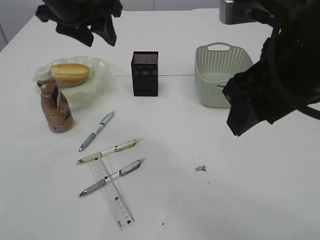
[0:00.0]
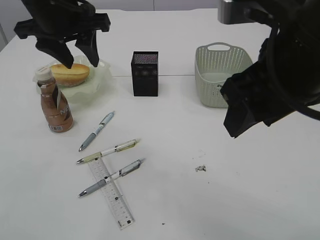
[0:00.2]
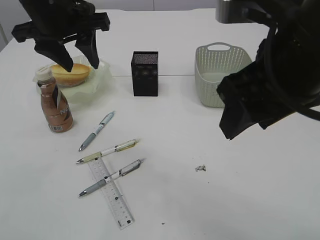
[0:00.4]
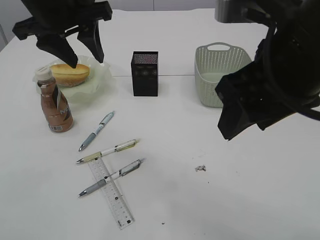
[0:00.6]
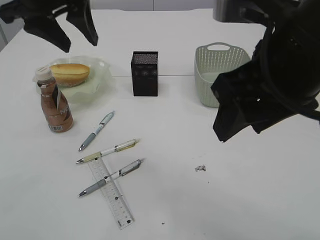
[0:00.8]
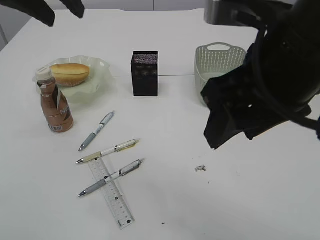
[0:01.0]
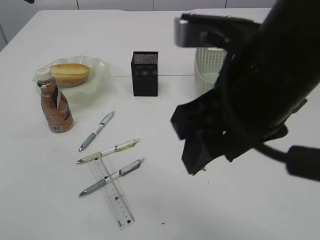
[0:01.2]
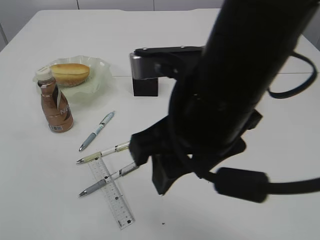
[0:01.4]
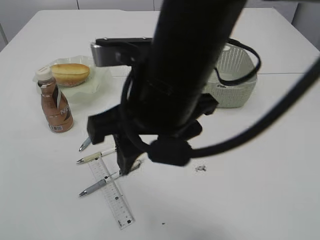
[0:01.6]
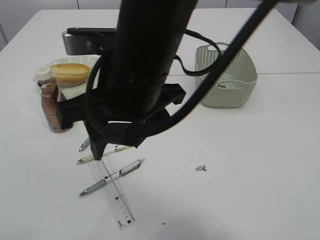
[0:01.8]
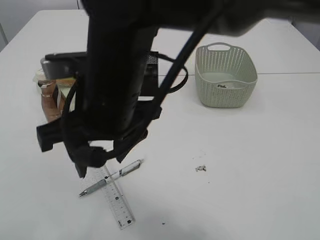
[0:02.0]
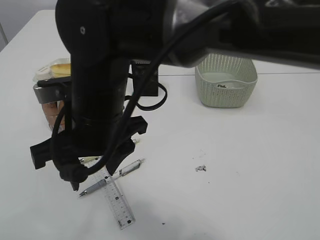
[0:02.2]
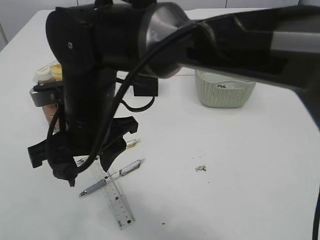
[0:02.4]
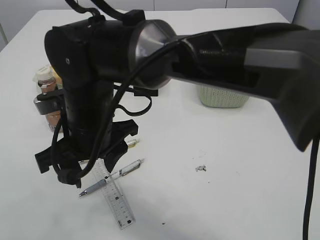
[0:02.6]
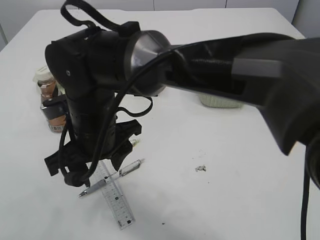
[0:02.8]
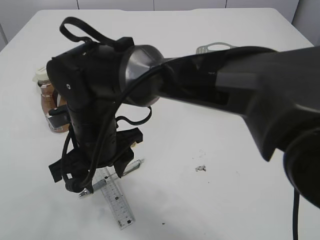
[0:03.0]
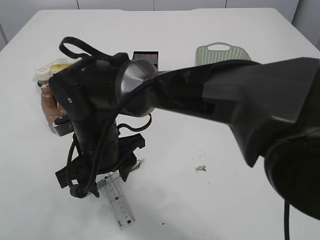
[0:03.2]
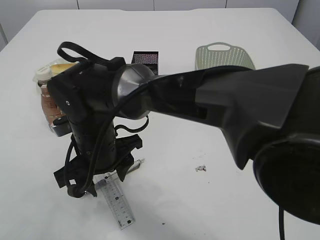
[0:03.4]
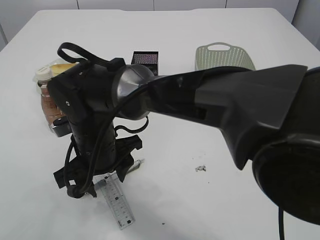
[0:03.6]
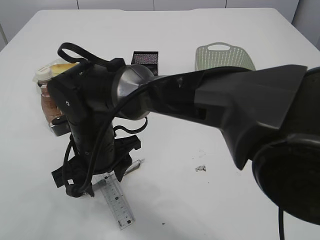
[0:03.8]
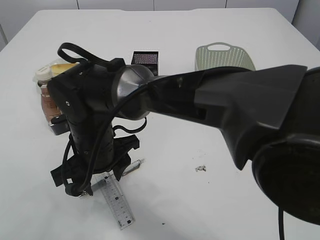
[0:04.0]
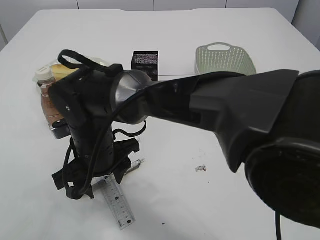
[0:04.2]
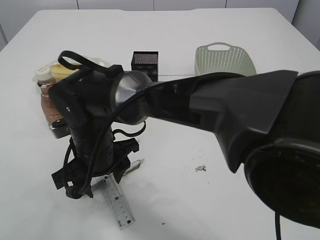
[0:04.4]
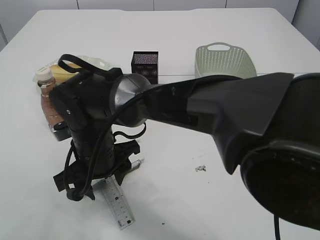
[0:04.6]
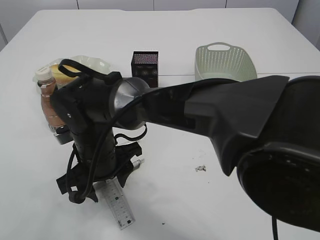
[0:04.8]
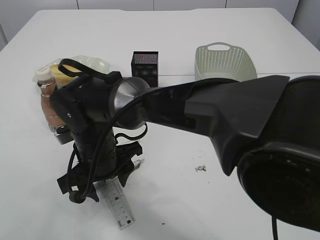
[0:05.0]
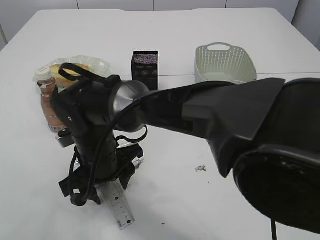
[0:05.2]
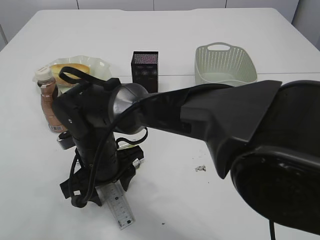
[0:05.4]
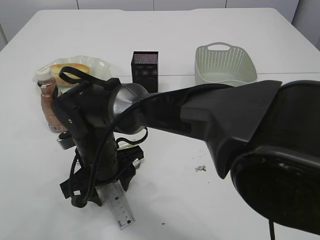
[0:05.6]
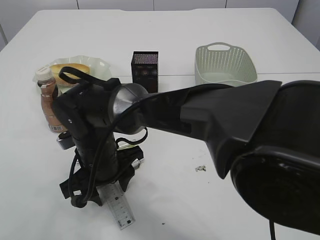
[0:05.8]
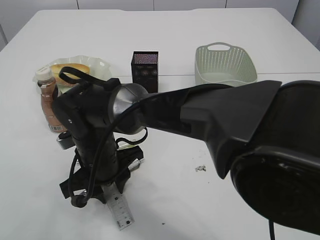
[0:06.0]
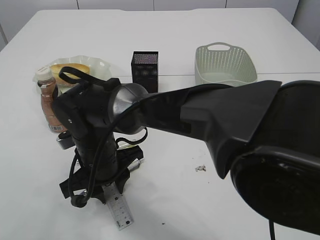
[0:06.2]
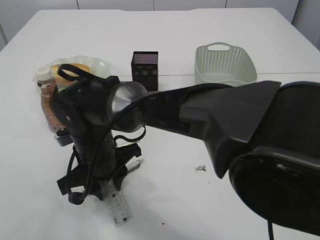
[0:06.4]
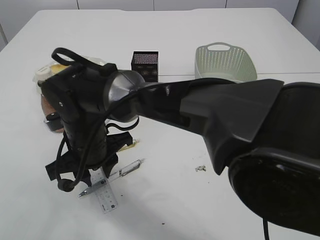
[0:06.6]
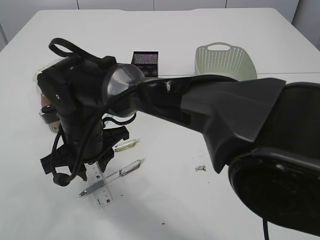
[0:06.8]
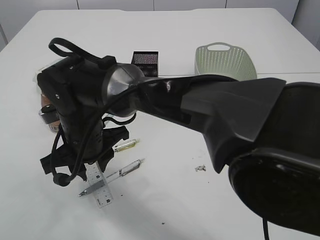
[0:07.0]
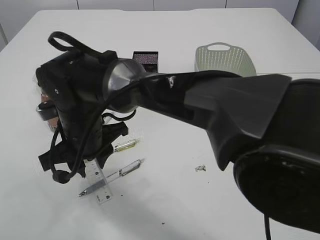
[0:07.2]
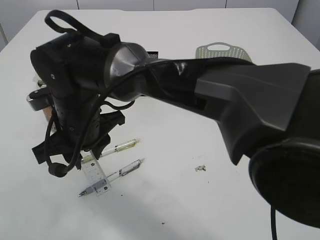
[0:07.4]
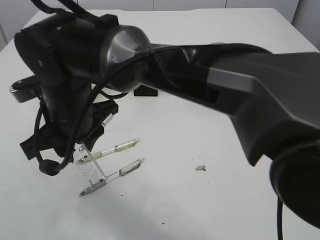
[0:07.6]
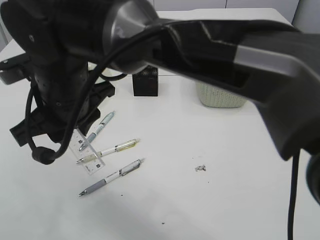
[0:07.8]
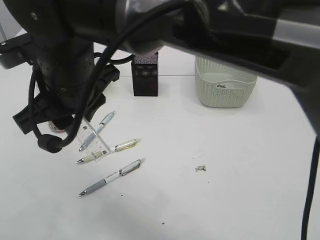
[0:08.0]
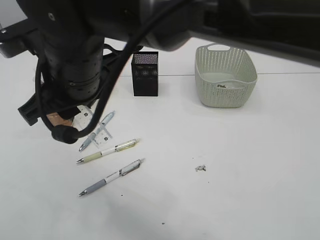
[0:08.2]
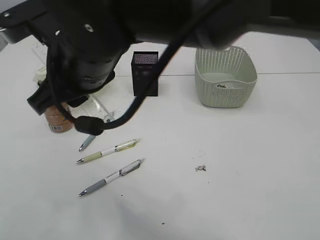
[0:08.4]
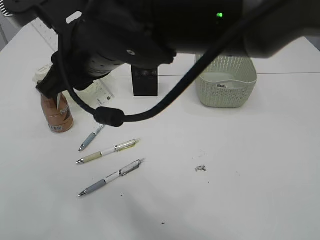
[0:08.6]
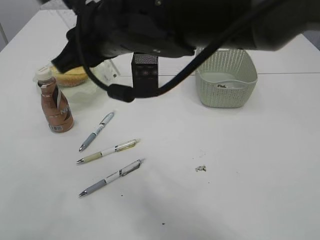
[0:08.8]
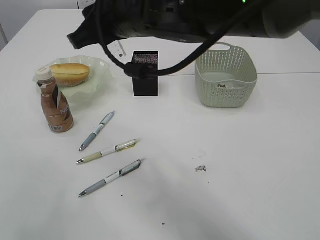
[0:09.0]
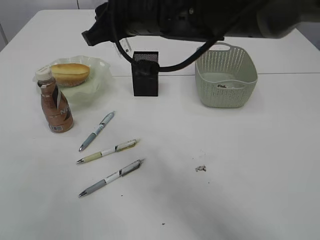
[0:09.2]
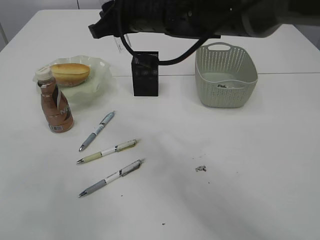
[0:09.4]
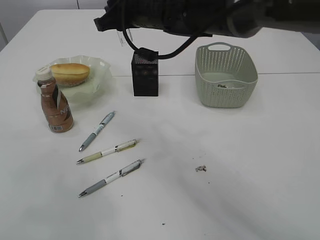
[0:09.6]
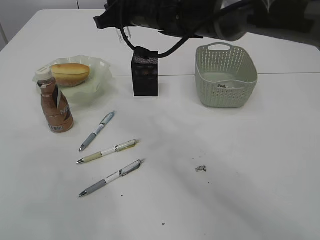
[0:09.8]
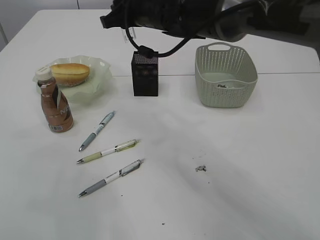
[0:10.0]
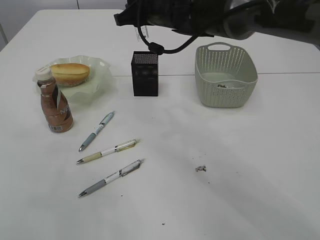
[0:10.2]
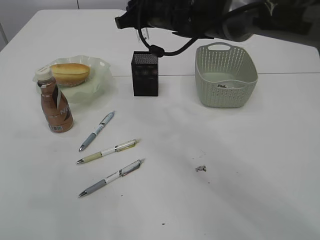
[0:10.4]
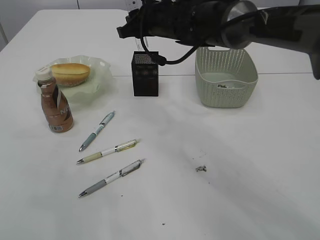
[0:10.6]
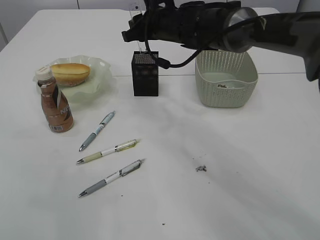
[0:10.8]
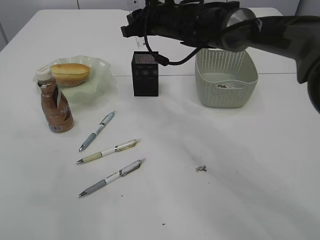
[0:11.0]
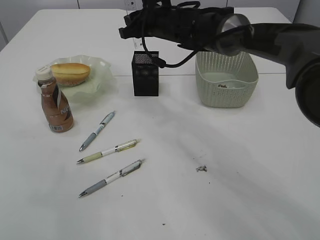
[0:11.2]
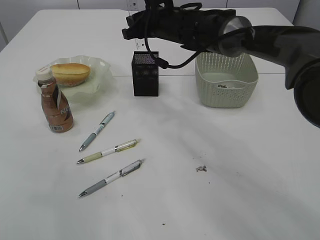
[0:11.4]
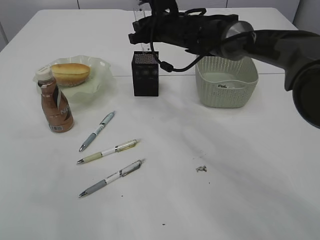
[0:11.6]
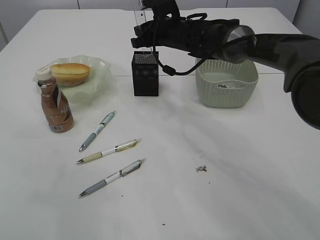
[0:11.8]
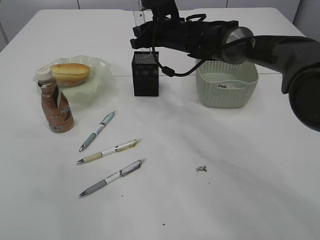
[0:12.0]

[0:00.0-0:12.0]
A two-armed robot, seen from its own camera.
Step, 0:00.0 to 0:06.6: pick up the ruler.
0:00.0 to 0:01.6: The right gripper moves to the left, approximately 10 cm, while the left gripper moves upward, backward and to the left, roughly 20 cm.
0:01.6 to 0:03.0: The left gripper moves to the left, approximately 5 cm; the right gripper shifts roughly 20 cm downward, to the left and forward.
0:04.4 to 0:06.0: The grippers move only a little.
0:06.0 to 0:07.6: The right gripper is displaced upward by about 10 cm.
0:07.6 to 0:09.0: The right gripper is displaced upward and to the right by approximately 15 cm.
0:09.0 to 0:10.4: The right gripper shifts some 15 cm forward; the left gripper changes place by approximately 5 cm.
0:10.4 to 0:12.0: The right gripper shifts about 10 cm downward and forward.

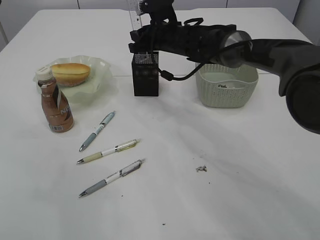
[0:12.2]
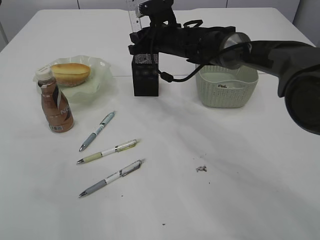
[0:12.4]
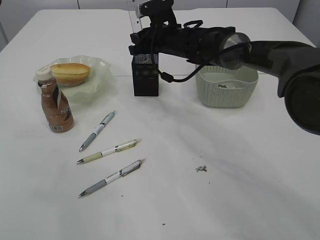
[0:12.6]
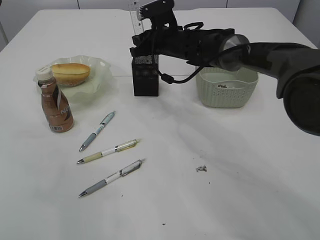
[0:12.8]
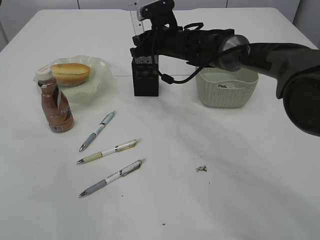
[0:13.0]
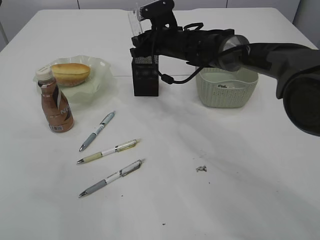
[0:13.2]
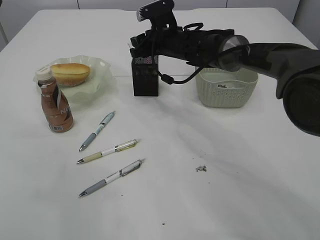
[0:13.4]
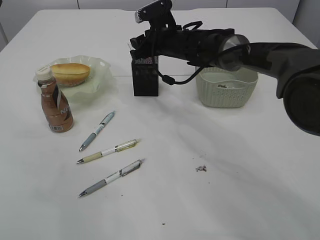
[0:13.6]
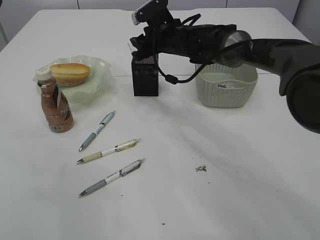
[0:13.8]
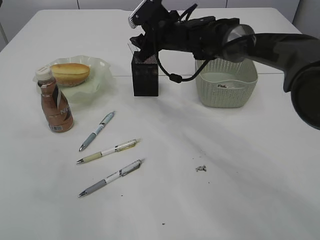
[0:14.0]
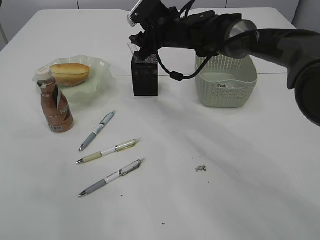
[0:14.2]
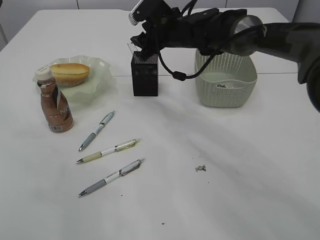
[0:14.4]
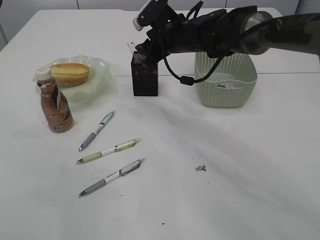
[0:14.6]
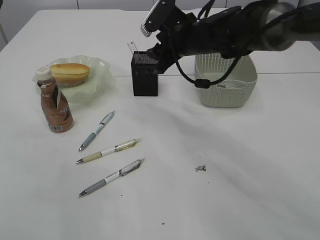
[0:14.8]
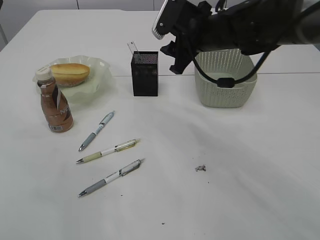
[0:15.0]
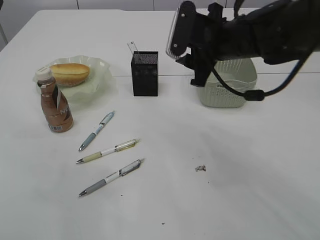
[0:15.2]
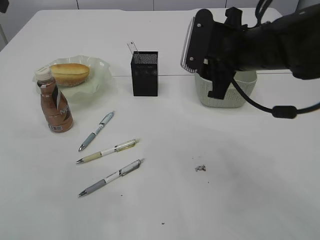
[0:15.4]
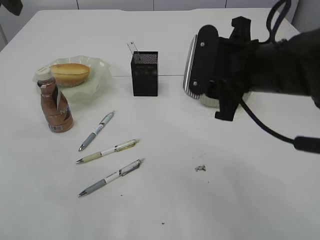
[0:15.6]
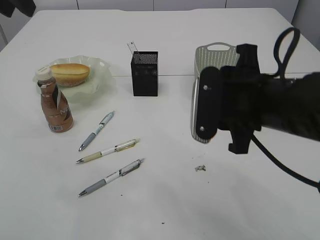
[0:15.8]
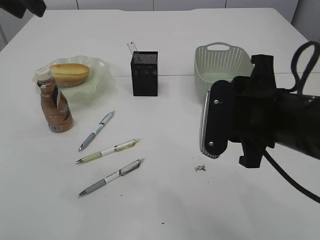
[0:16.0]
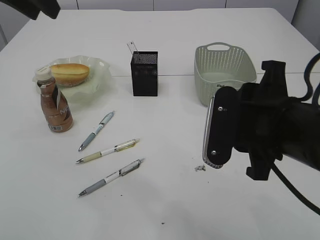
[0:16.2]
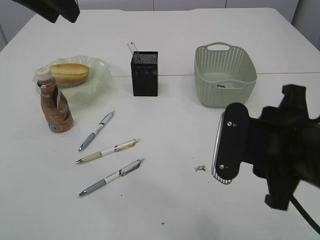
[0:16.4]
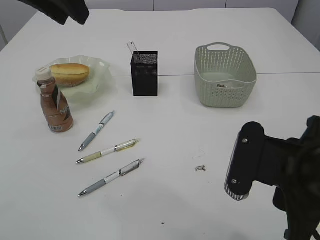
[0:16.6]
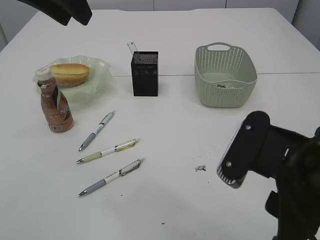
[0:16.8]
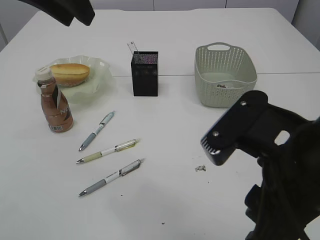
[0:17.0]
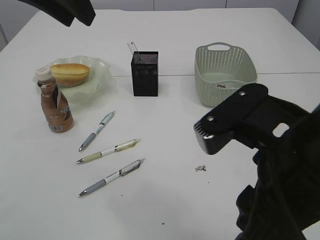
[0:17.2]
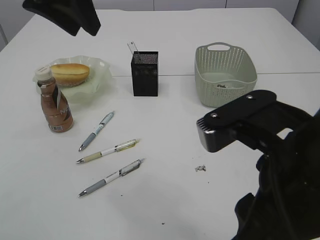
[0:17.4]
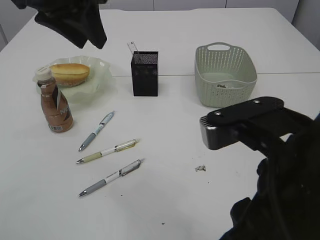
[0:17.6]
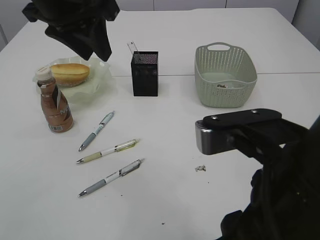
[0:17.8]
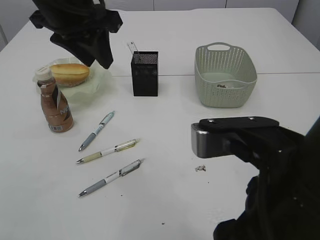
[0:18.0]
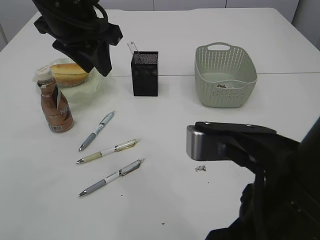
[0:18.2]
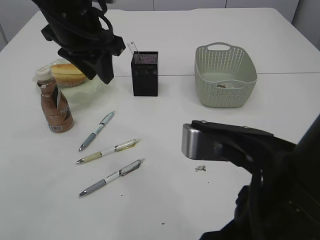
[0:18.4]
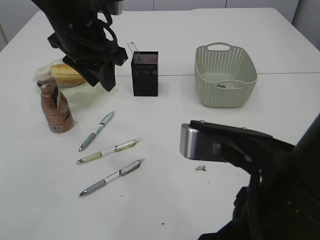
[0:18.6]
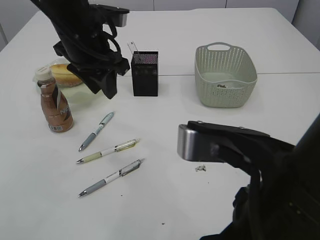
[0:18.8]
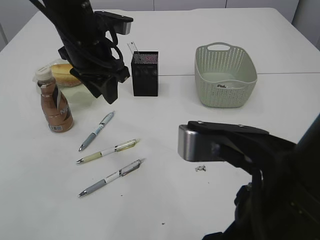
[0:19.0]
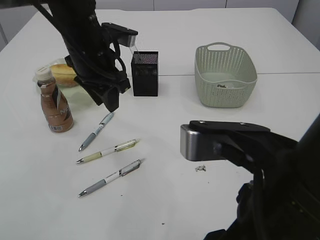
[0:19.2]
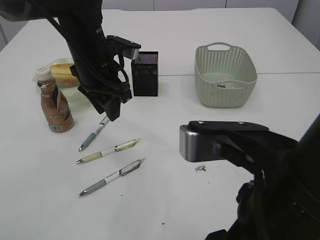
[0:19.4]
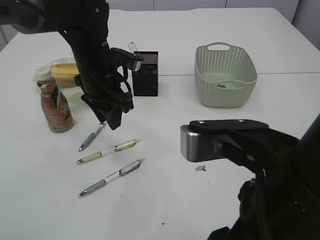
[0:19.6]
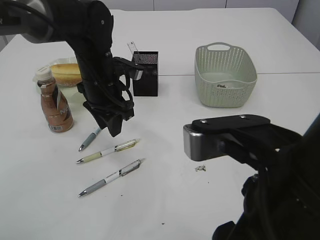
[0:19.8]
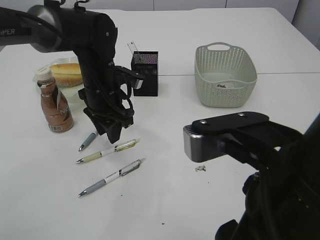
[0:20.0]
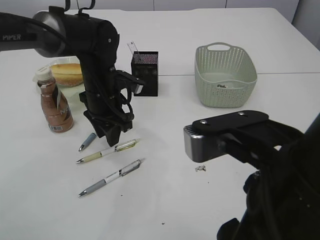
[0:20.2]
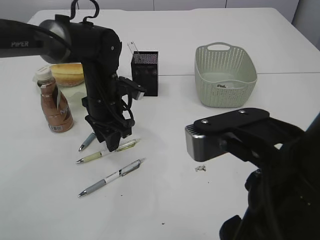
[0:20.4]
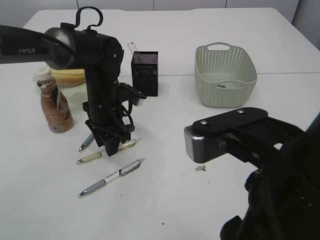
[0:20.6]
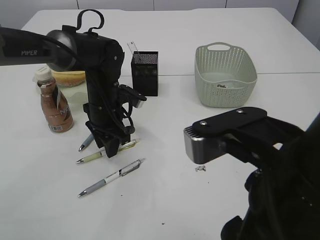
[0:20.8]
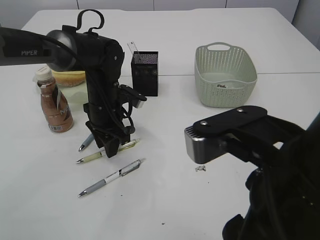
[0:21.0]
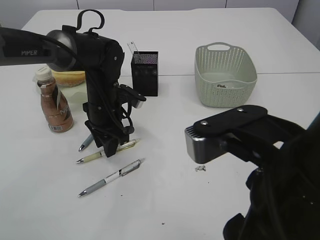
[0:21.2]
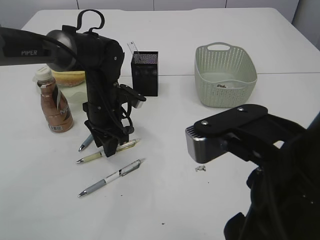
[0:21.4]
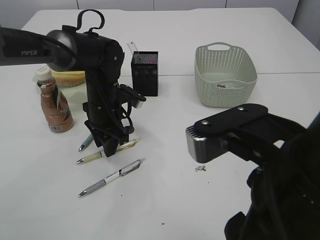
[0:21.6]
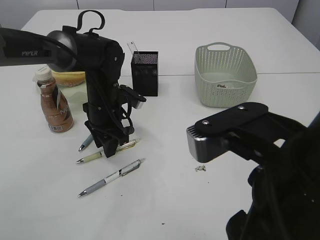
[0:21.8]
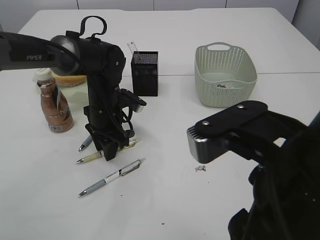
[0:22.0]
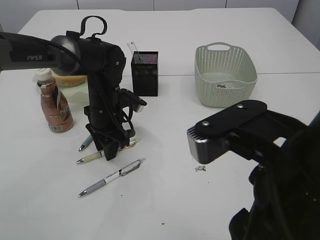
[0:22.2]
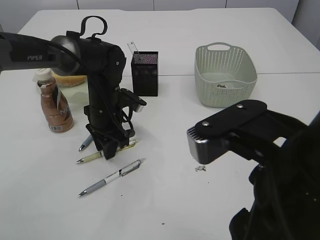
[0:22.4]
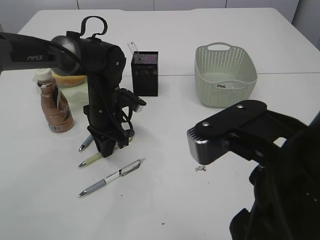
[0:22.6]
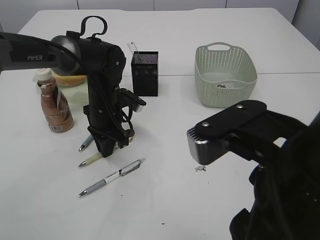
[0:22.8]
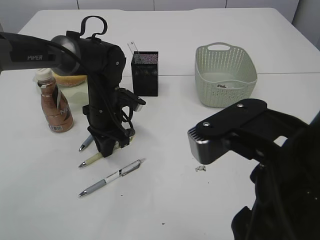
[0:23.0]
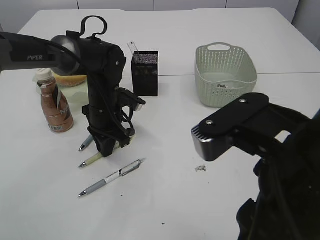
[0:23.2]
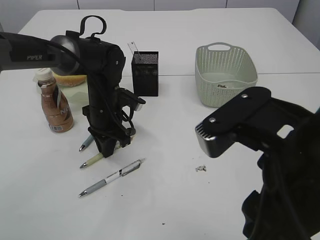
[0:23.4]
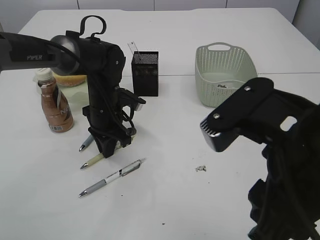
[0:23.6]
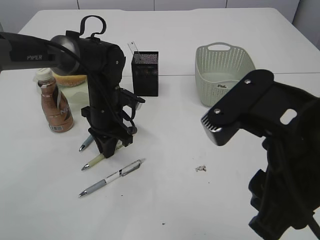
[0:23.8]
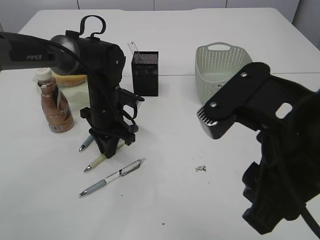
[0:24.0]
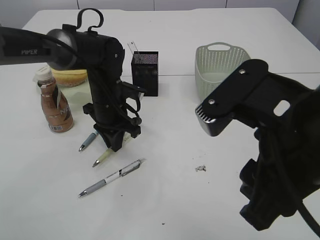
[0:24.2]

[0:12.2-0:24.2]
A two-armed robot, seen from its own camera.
Step, 0:12.2 to 0:14.6: Place the ruler into the pen holder.
0:12.2 to 0:13.8: There are only small adjustments of the grippers.
0:13.8 to 0:15.2: The right gripper is displaced backward, to the right and upward by some 15 cm.
0:15.2 to 0:16.6: The right gripper travels backward by approximately 25 cm. Meanwhile the left gripper shifts approximately 10 cm to the right.
0:16.6 to 0:18.2: The left gripper travels downward by approximately 10 cm. The right gripper heads upward, to the left and backward, covering approximately 10 cm.
0:18.2 to 0:19.8: The left gripper goes about 15 cm downward.
0:19.8 to 0:21.2: The left gripper is displaced downward by approximately 5 cm.
0:21.2 to 0:22.6: The left gripper closes up.
